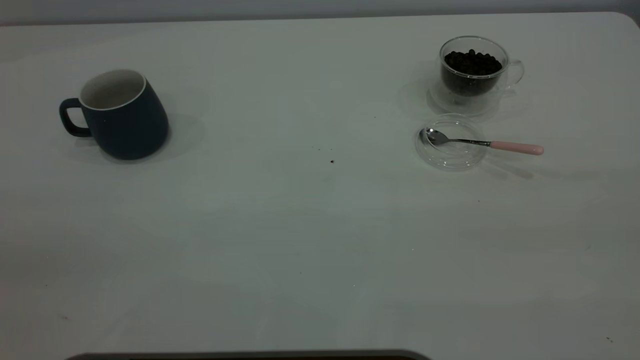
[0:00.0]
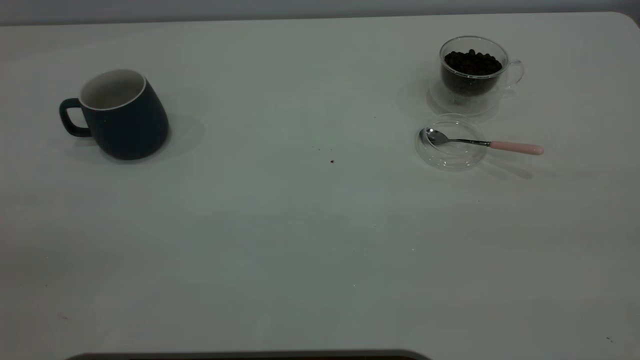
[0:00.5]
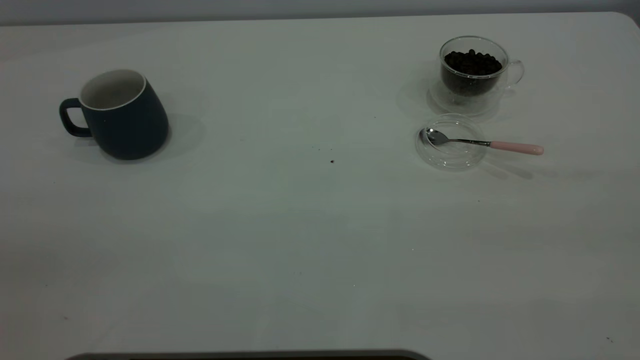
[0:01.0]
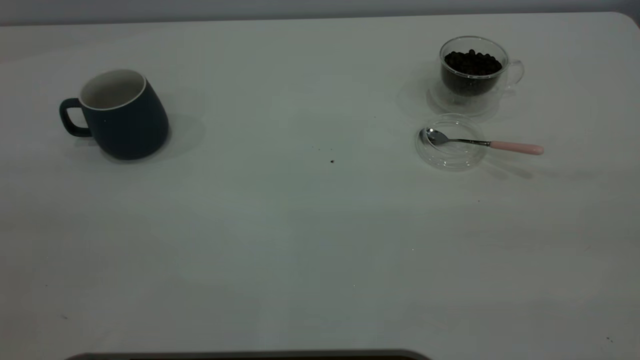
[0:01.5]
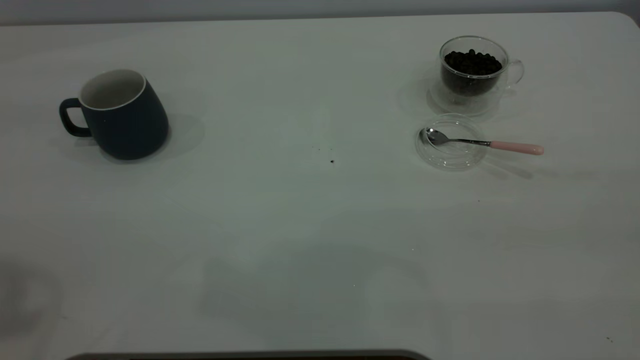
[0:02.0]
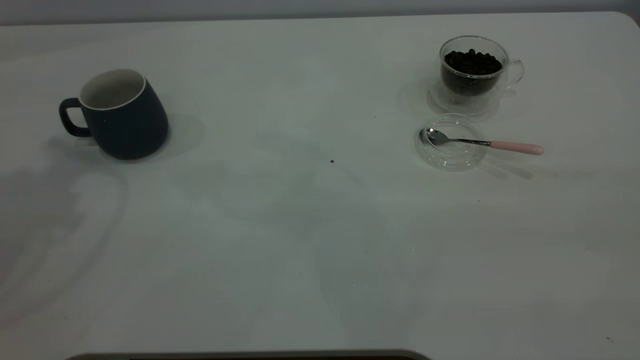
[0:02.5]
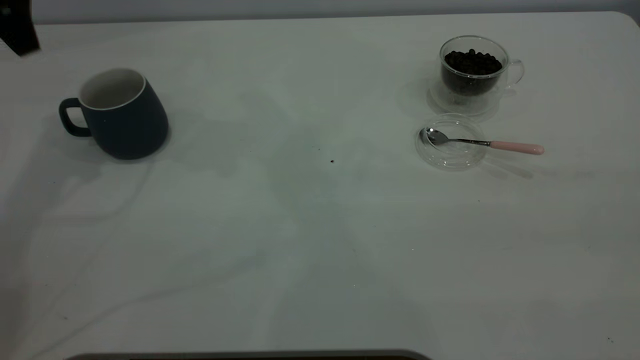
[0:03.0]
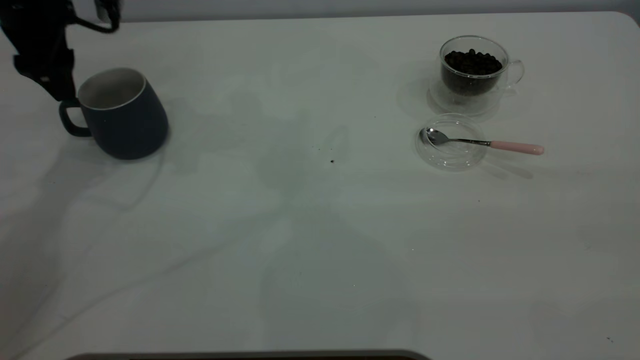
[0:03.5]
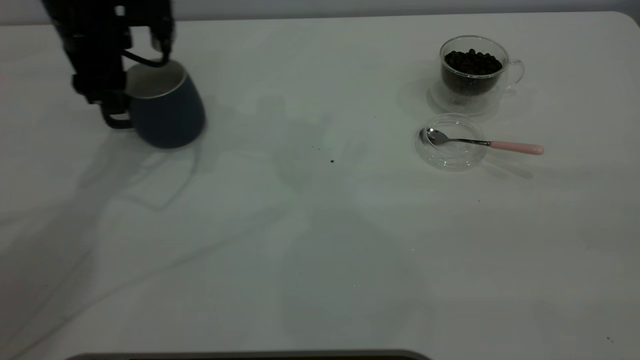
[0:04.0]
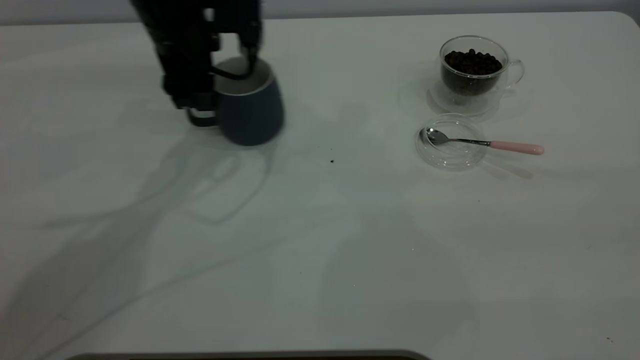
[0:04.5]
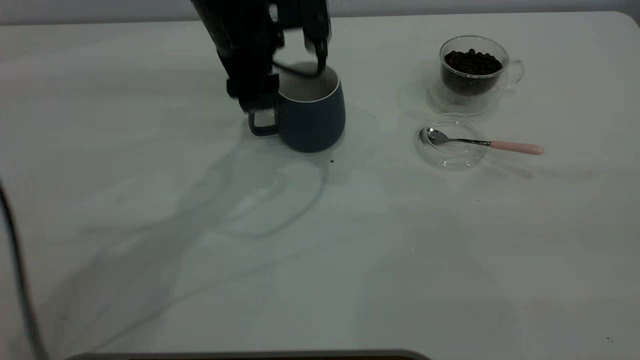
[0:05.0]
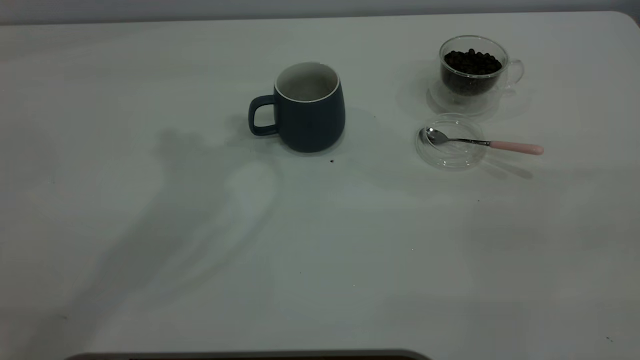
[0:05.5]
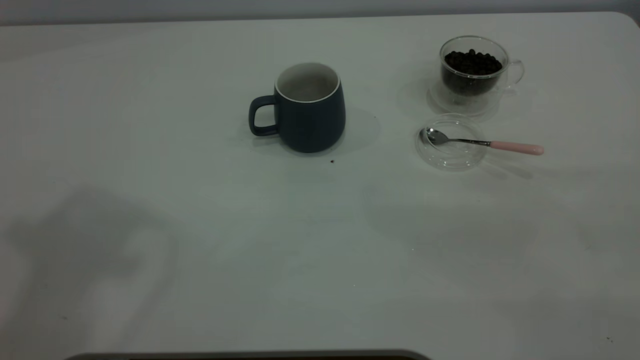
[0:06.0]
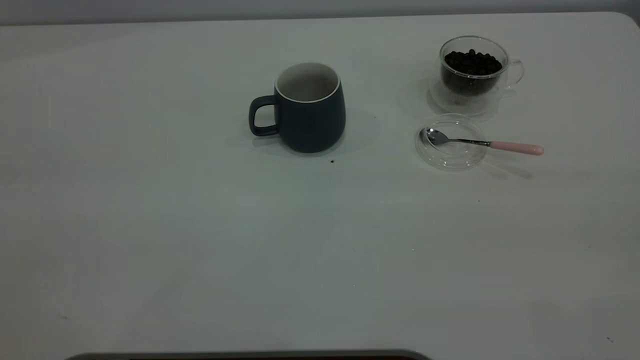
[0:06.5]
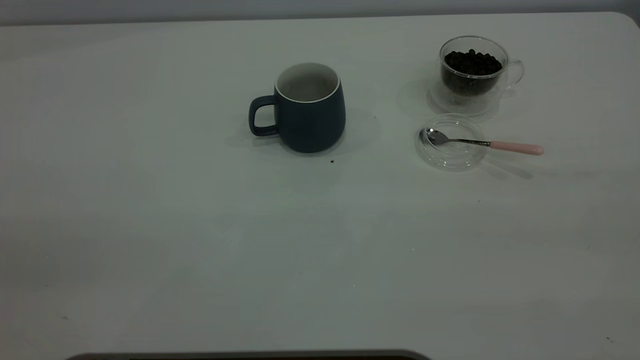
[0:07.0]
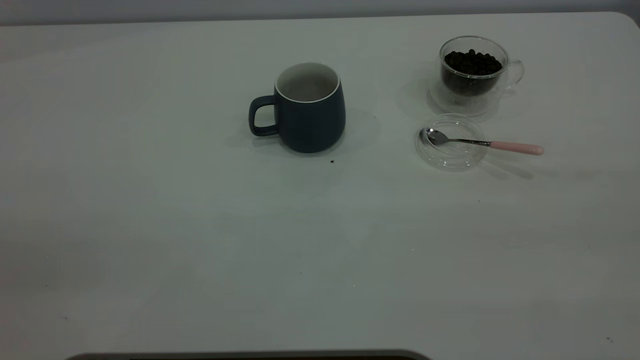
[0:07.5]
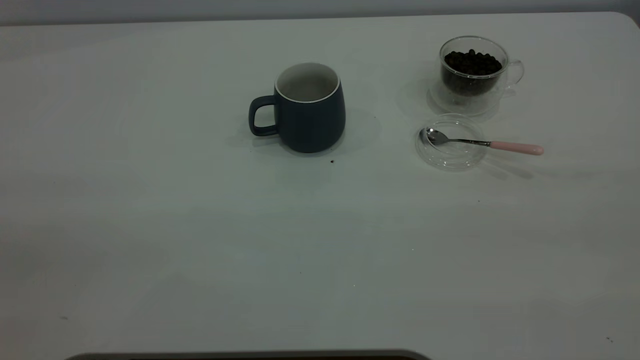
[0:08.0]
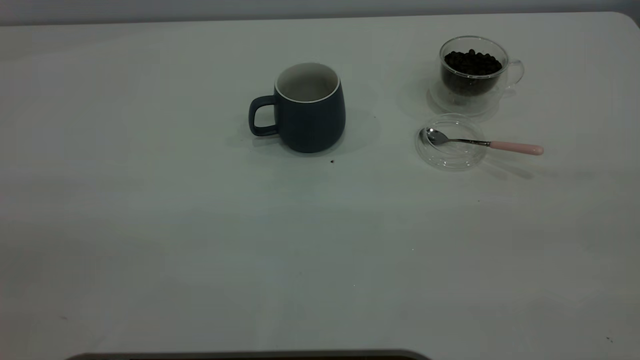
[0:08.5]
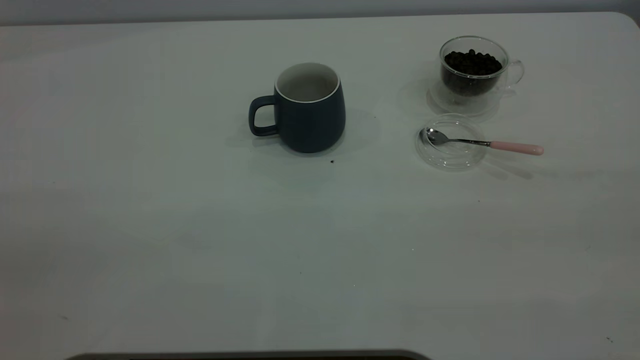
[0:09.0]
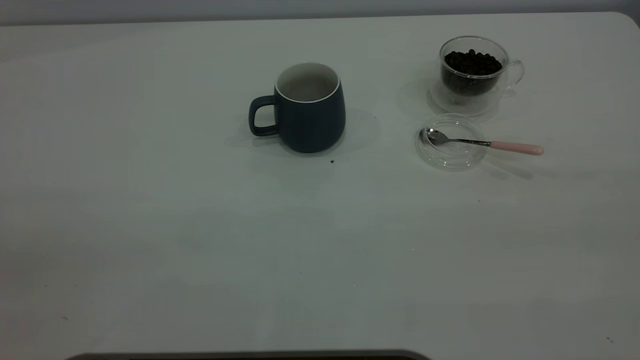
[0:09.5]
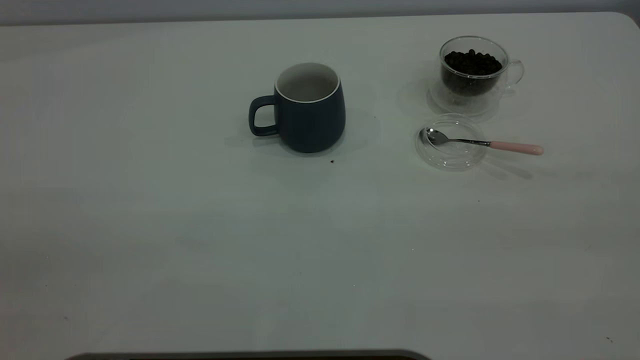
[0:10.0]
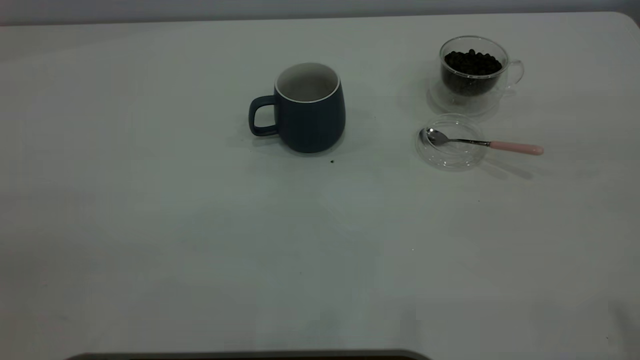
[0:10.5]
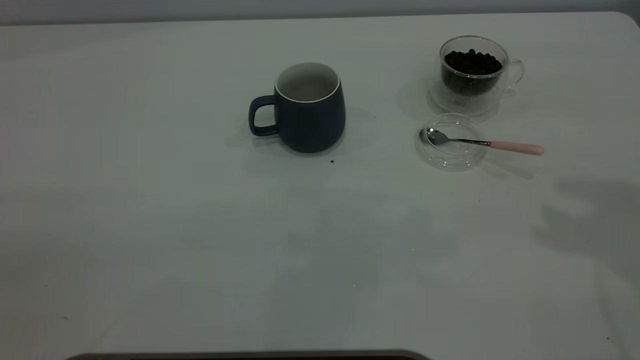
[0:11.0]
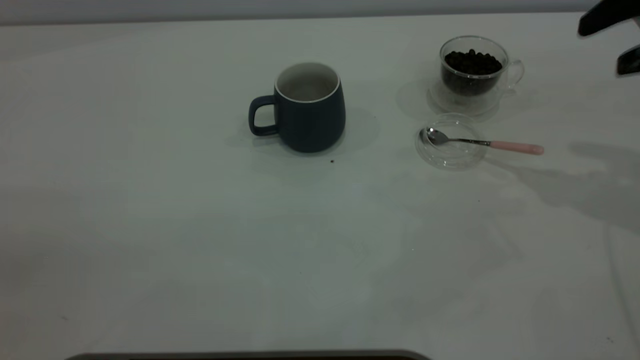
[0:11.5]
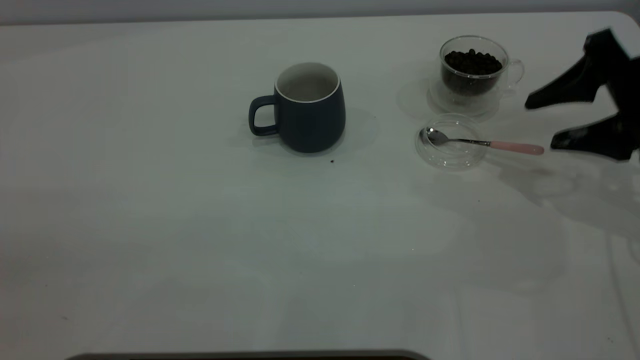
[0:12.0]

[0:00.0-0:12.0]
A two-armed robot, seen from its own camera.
Task of the whole recording: the left gripper place the grey cup in the center of the table, the right gripper take the pink spoon from the cup lid and scoop out the coffee beans from the coffee cup and put them into the grey cup, the right gripper put the spoon back into the cup lid.
Step, 0:00.0 to 0:05.0: Move the cup to the center of view.
0:02.0 to 0:04.0: The left gripper travels forward and downward by some 40 cm.
0:04.0 to 0:06.0: The left gripper goes about 40 cm upward and backward.
0:10.0 to 0:12.0: The right gripper goes some 40 cm forward and downward.

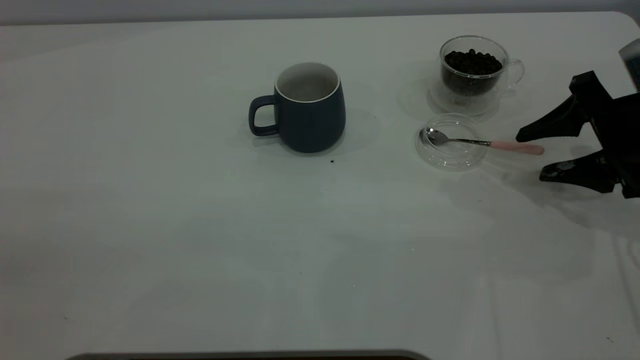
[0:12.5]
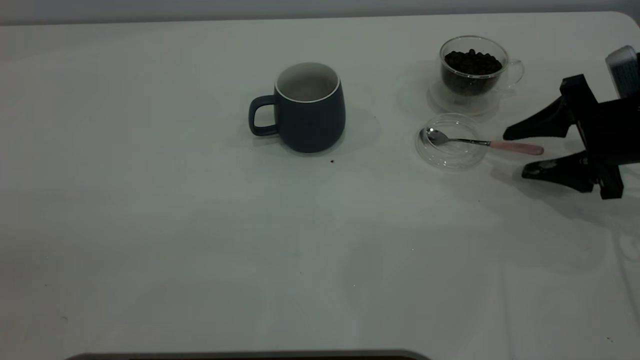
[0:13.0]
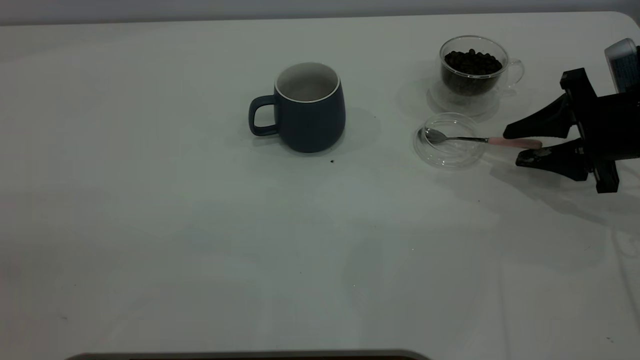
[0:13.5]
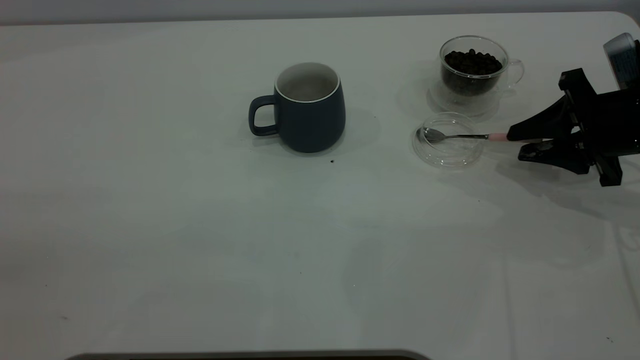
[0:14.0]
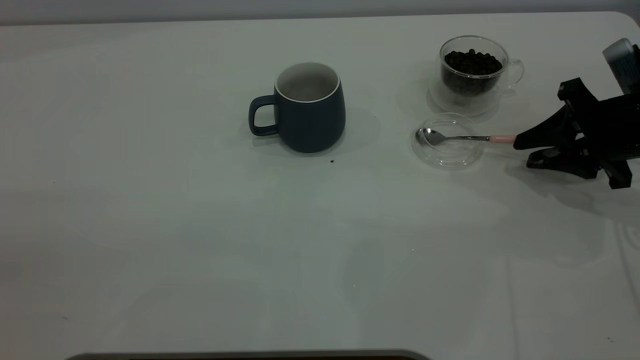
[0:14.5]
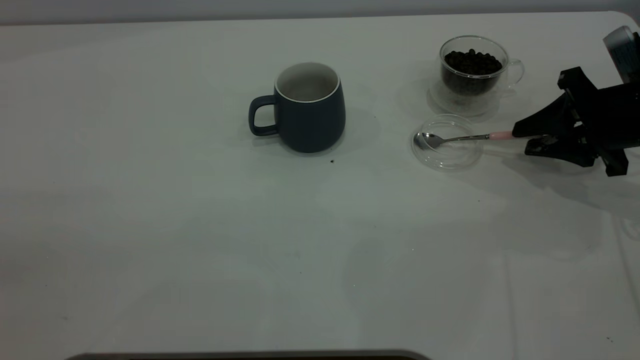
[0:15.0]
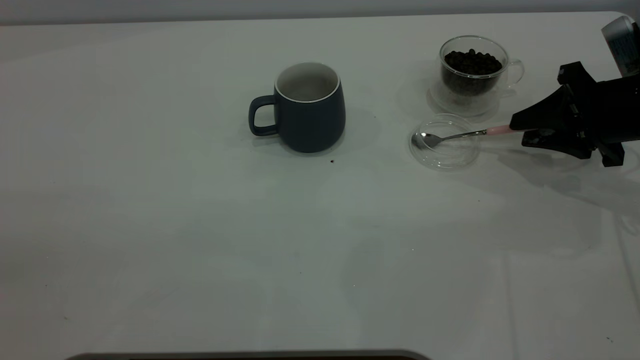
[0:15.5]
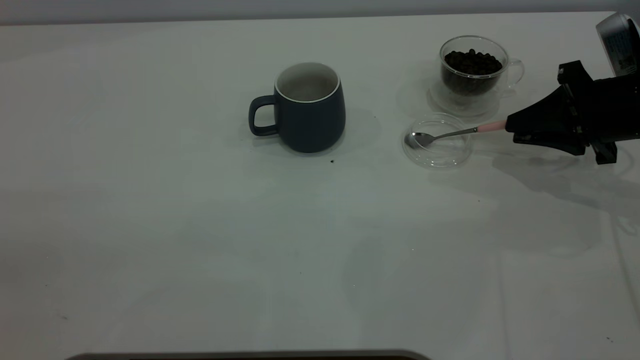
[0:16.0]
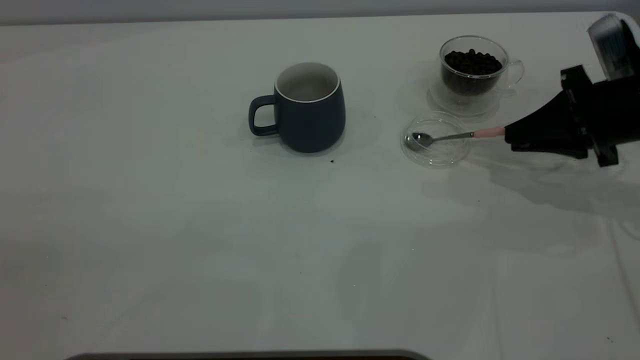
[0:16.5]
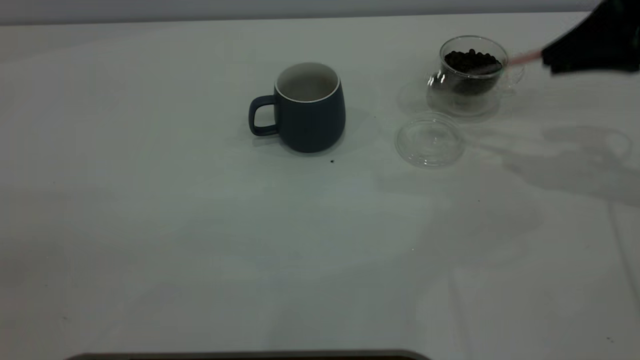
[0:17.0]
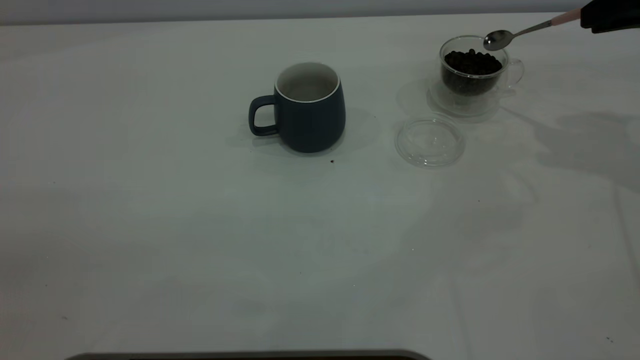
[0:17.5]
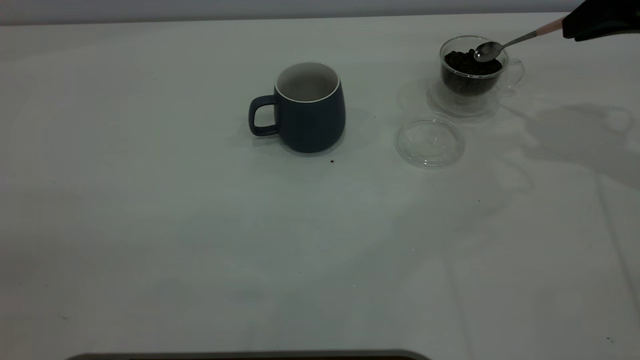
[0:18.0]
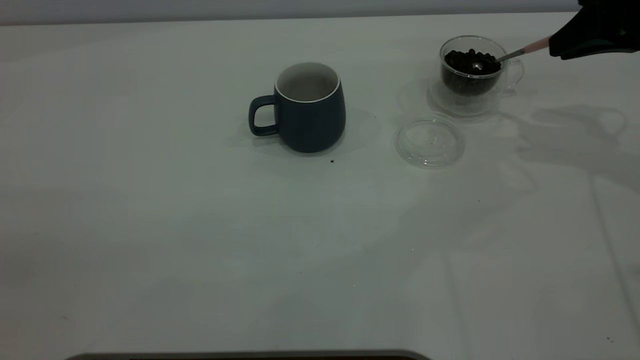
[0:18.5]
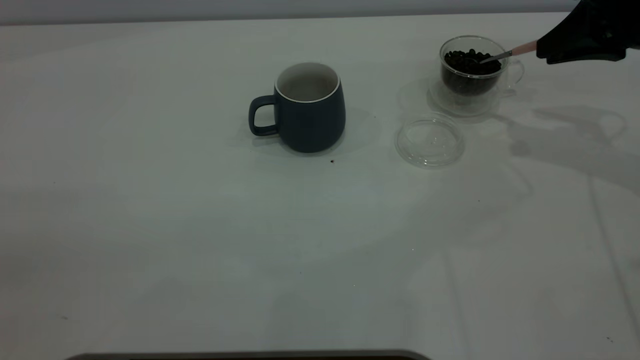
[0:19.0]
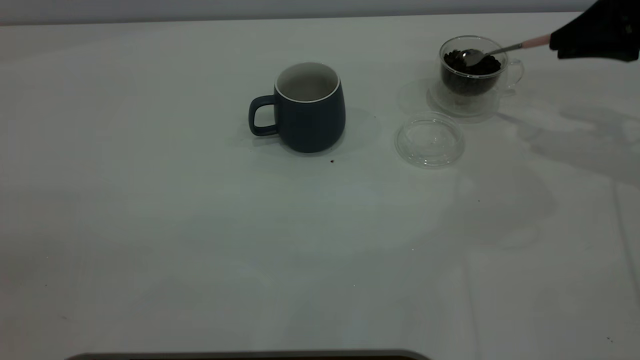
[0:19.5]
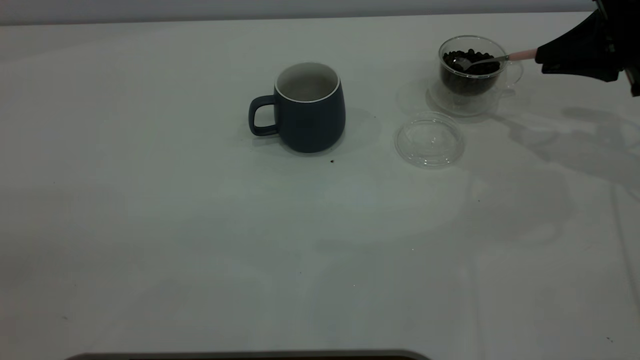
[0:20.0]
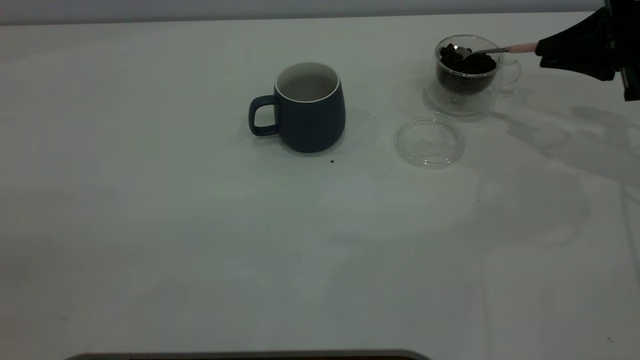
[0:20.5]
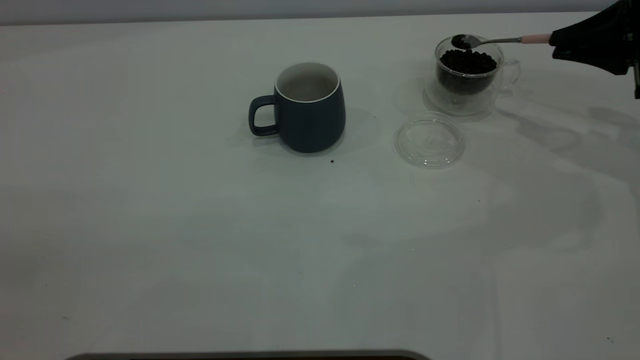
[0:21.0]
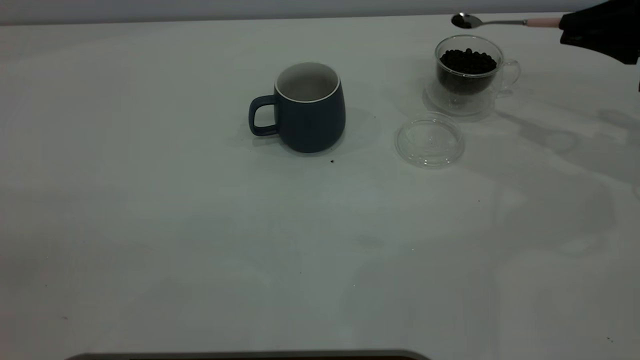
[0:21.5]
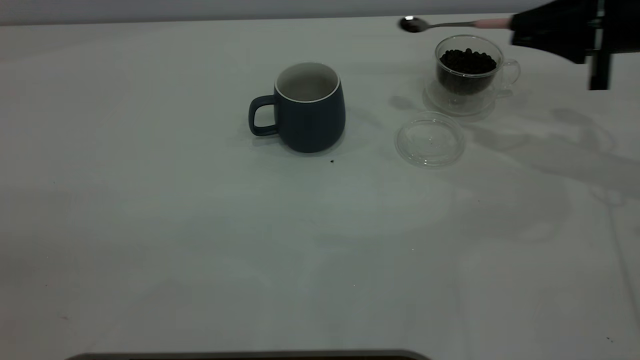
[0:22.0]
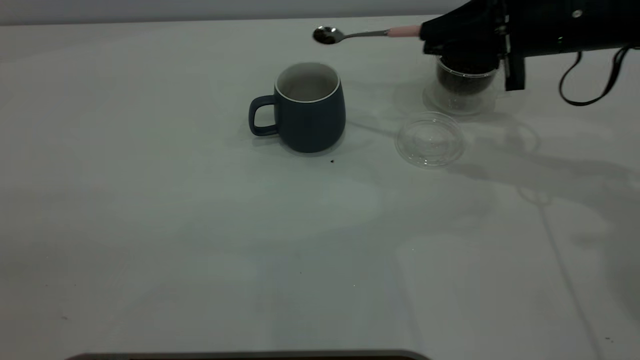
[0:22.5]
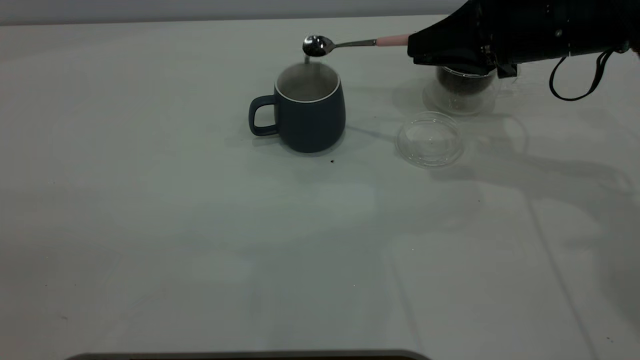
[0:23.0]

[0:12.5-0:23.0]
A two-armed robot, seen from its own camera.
Task of the whole recording: the left gripper place the grey cup in the center of the table, the right gripper take the pink spoon from the cup lid and scoop out the coffee beans from the coffee cup and put them into the grey cup, the right gripper put the spoon back into the cup lid.
Step, 0:12.5 to 0:16.5: Pick up the spoon.
0:12.5 to 0:14.5: The right gripper closes its fingers.
0:14.5 to 0:16.5: The right gripper closes its fingers.
0:16.5 to 0:19.0: The right gripper goes approximately 10 cm upward.
0:19.0 to 0:21.0: The right gripper moves some 5 cm.
0:21.0 to 0:23.0: The right gripper is displaced to the left by some 15 cm.
